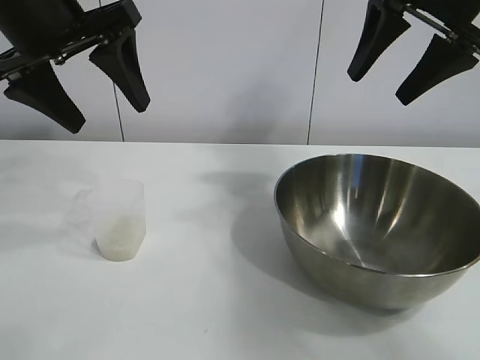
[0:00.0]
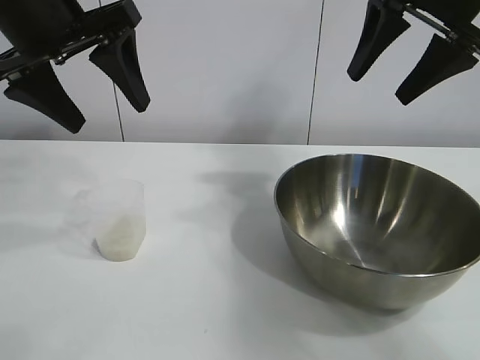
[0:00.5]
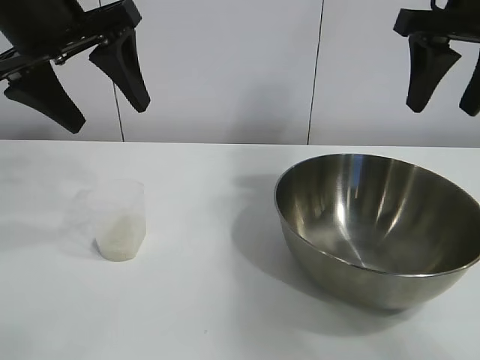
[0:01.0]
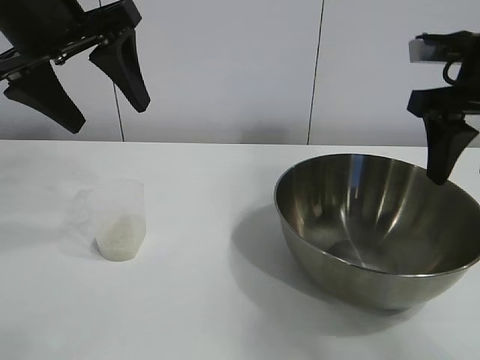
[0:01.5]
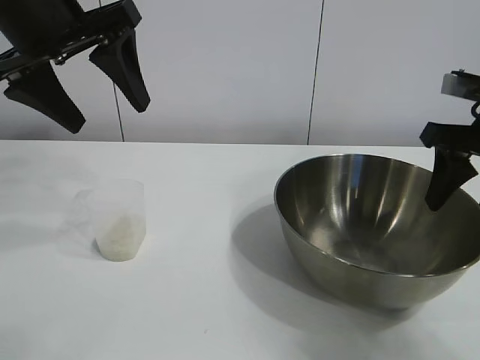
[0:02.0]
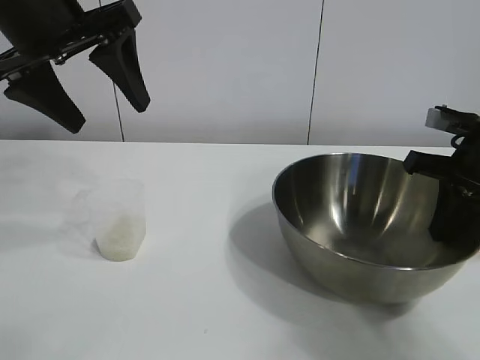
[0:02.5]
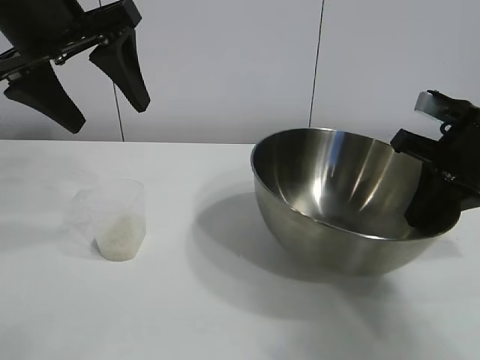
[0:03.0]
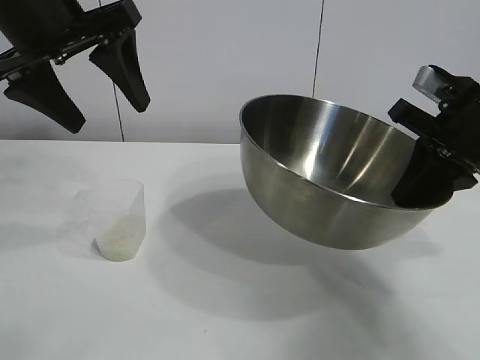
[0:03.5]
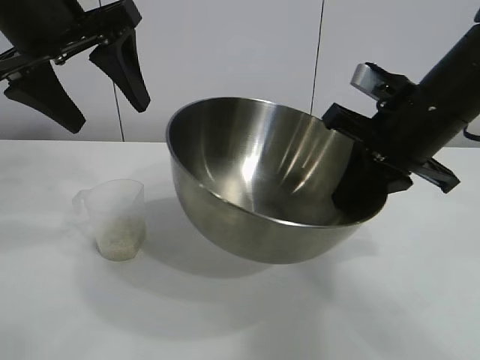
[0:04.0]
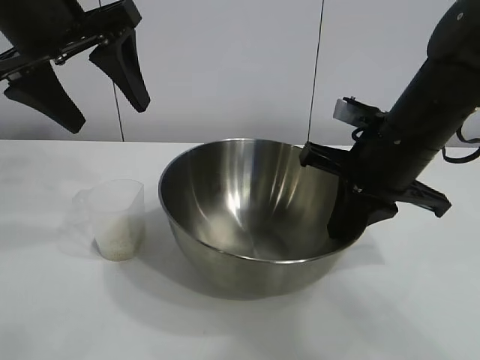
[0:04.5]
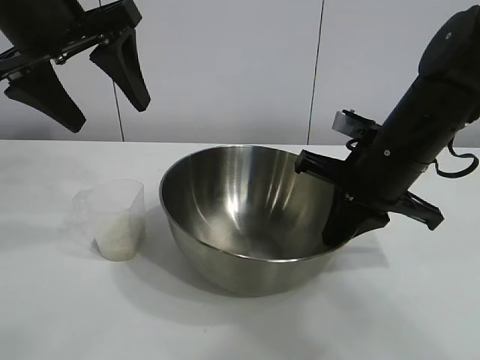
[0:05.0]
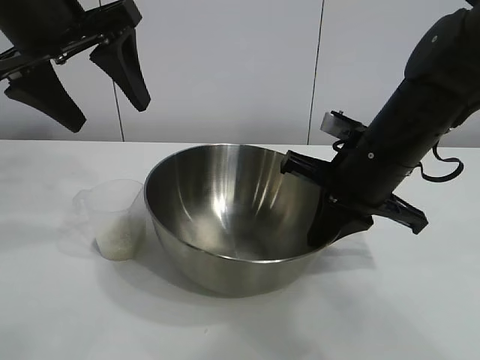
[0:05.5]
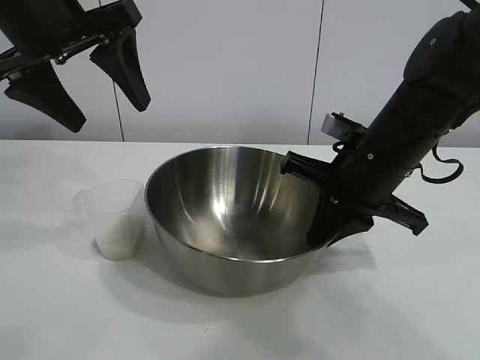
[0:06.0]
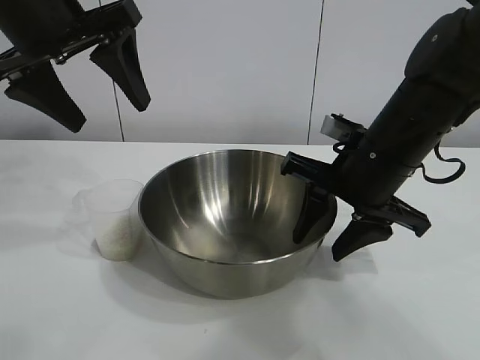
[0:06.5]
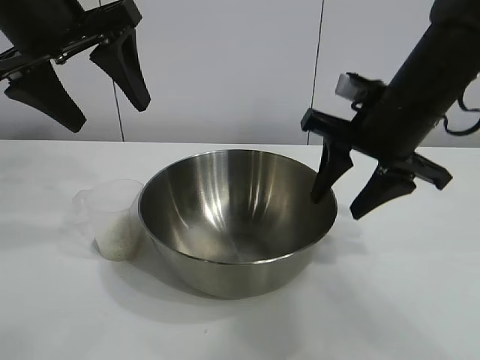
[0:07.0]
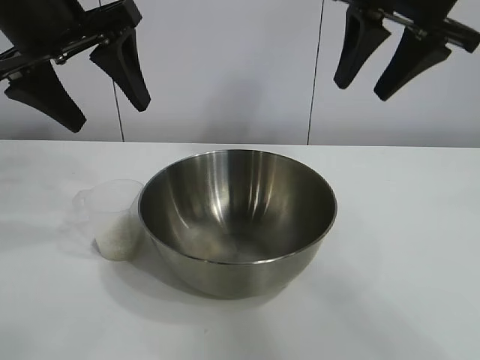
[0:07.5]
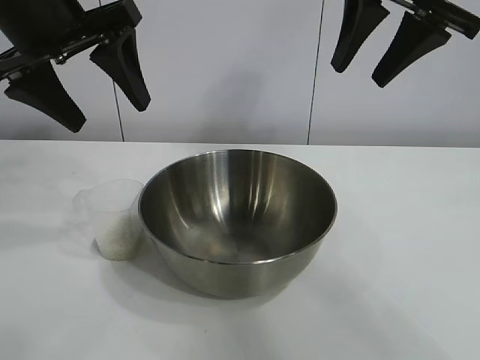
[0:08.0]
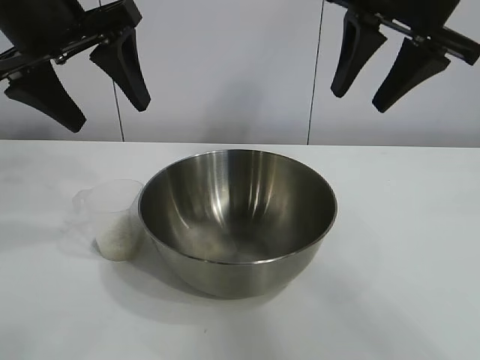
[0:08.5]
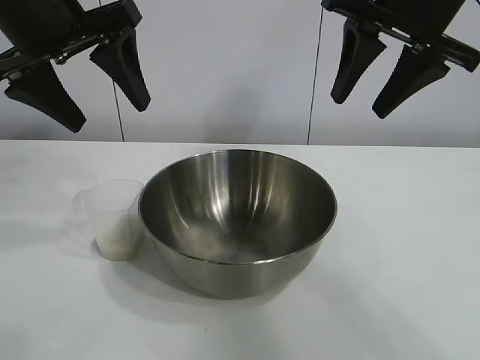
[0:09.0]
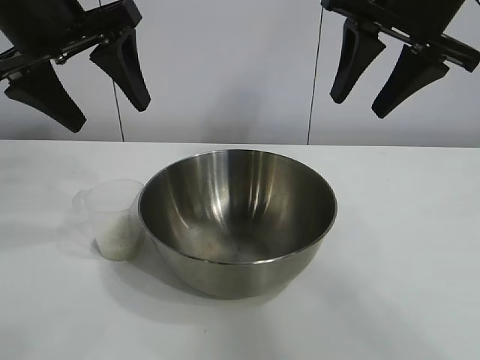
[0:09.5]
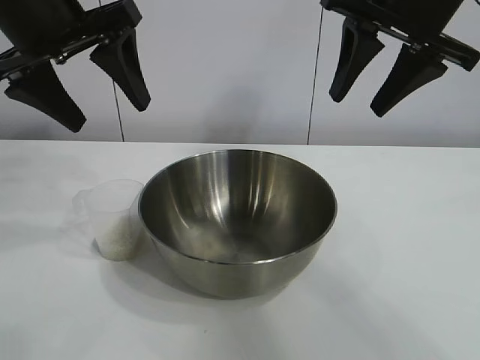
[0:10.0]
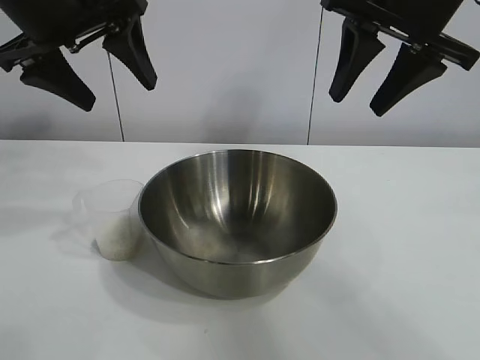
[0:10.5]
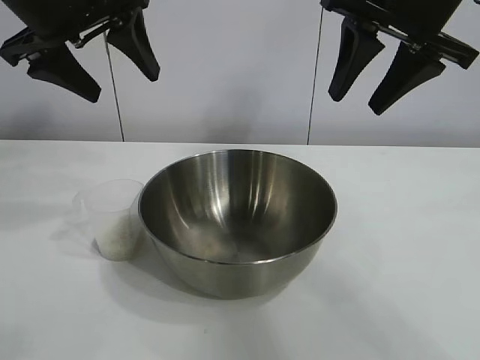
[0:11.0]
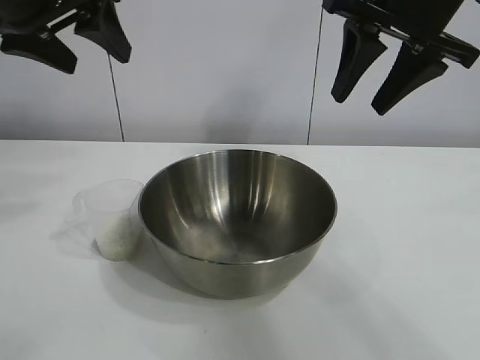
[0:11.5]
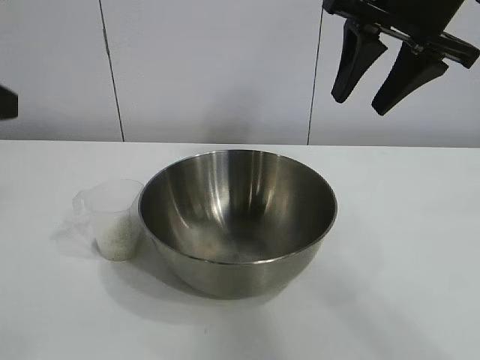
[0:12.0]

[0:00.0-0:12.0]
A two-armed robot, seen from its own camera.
Task of the whole recording: the right gripper grasp the rice container and place it in the center of the table, the left gripper grasp the rice scoop and pour the rice into the rice container.
Step, 0:01.0 to 0:06.5: Move the bowl in the center of view with right gripper.

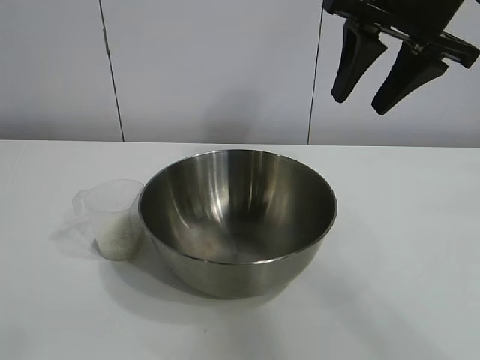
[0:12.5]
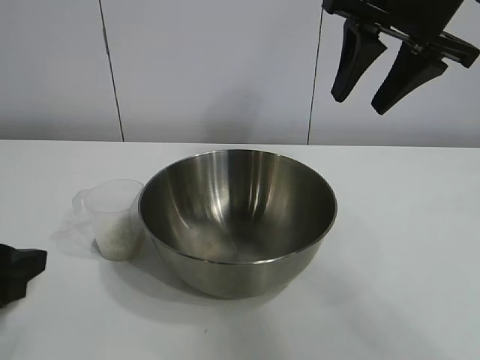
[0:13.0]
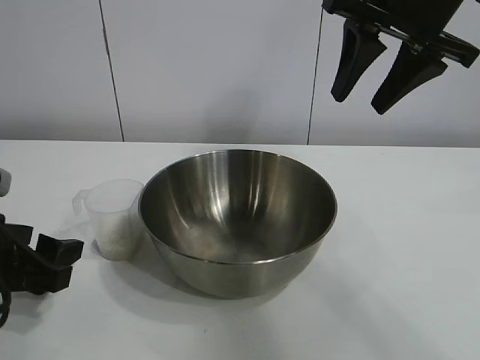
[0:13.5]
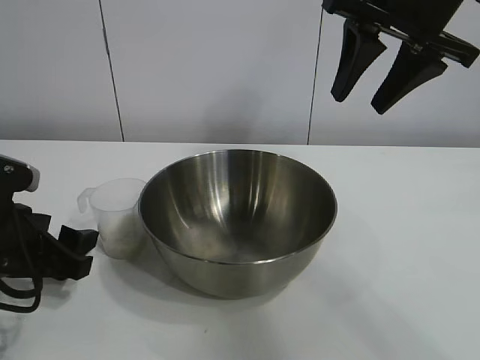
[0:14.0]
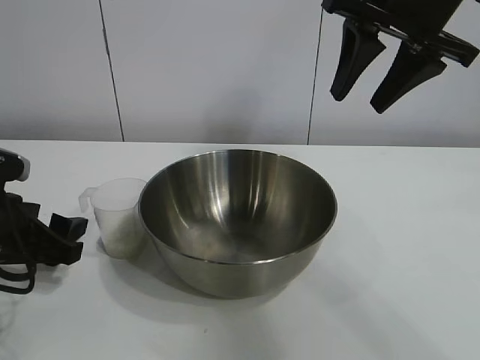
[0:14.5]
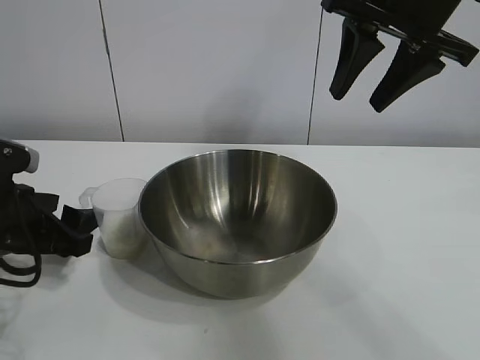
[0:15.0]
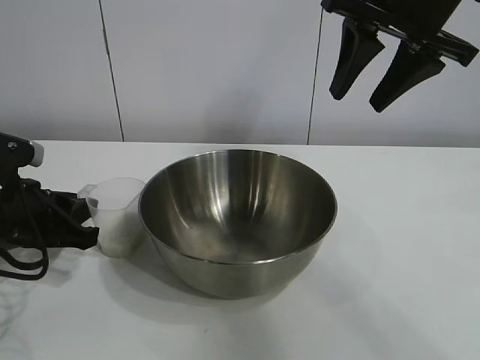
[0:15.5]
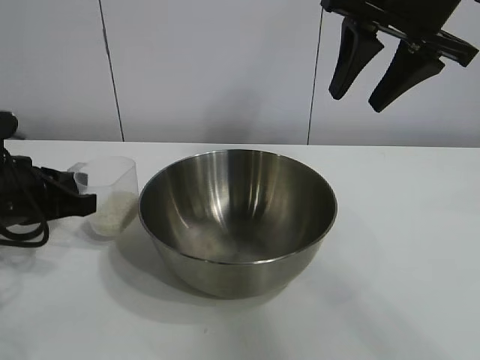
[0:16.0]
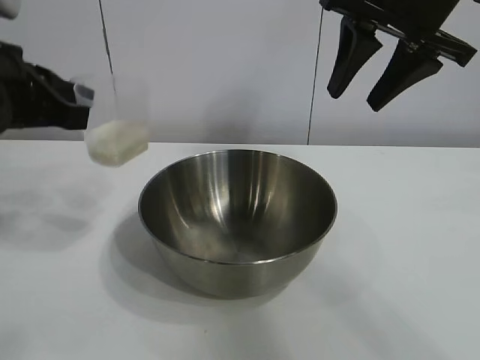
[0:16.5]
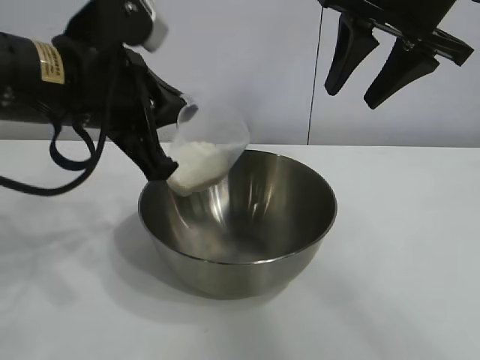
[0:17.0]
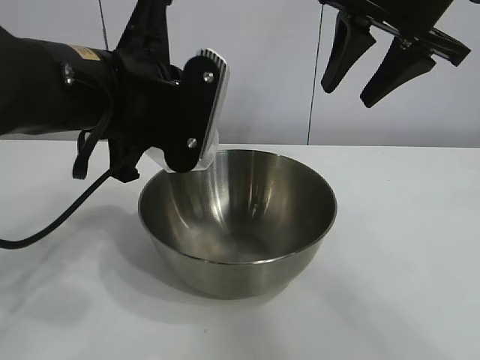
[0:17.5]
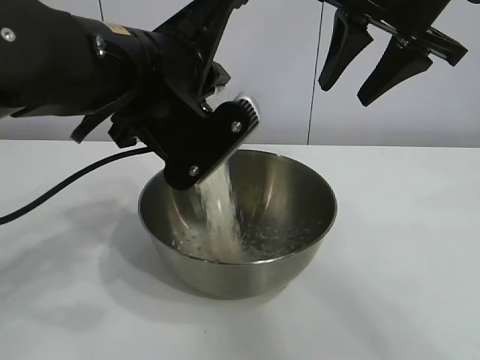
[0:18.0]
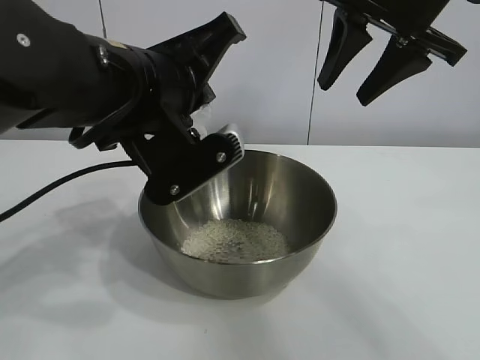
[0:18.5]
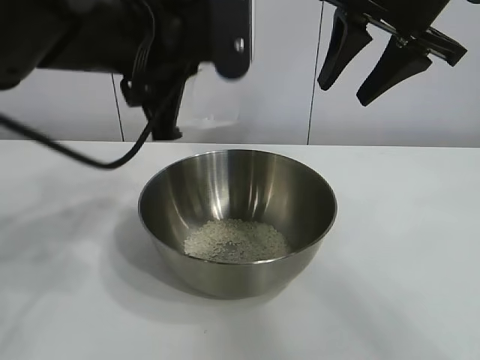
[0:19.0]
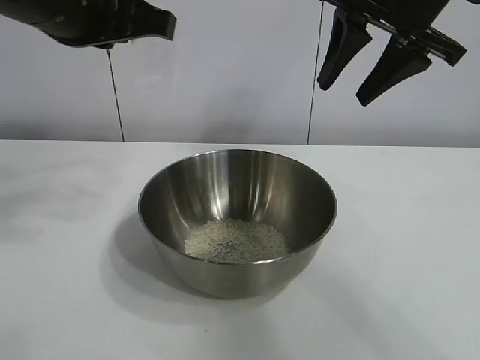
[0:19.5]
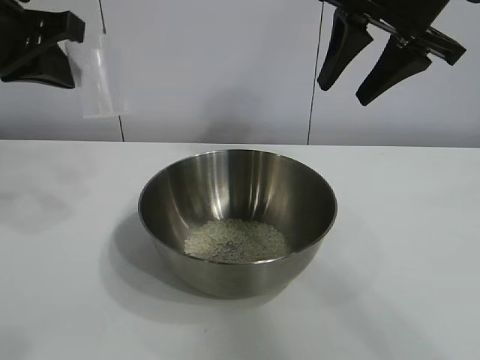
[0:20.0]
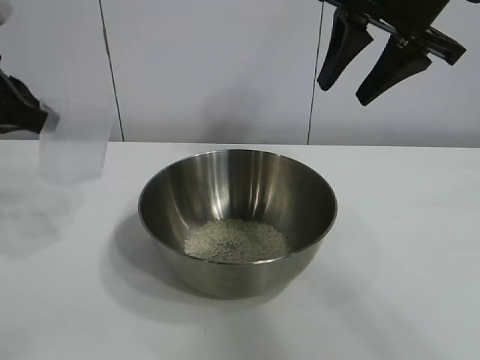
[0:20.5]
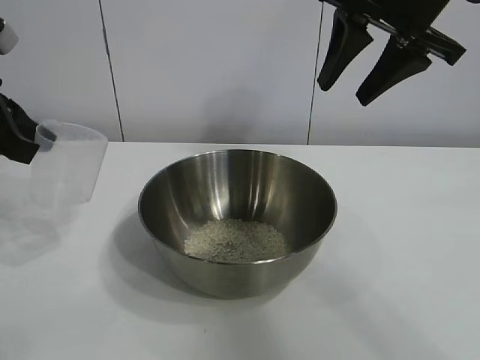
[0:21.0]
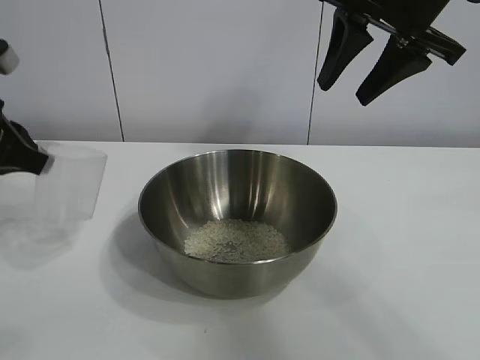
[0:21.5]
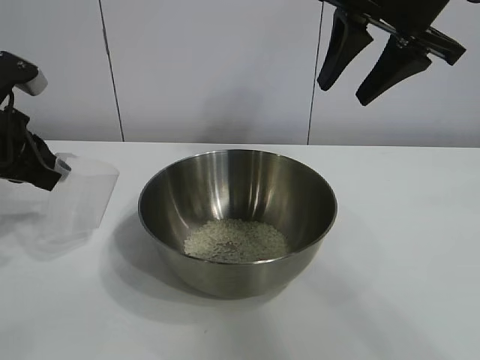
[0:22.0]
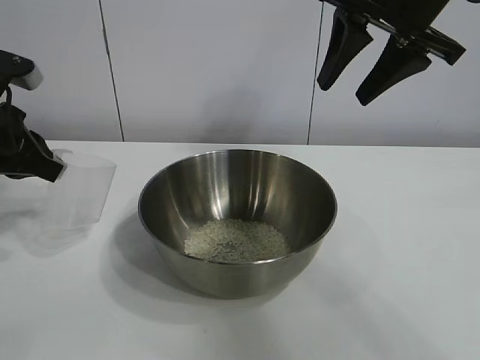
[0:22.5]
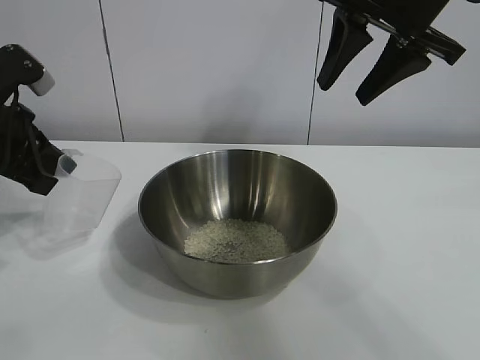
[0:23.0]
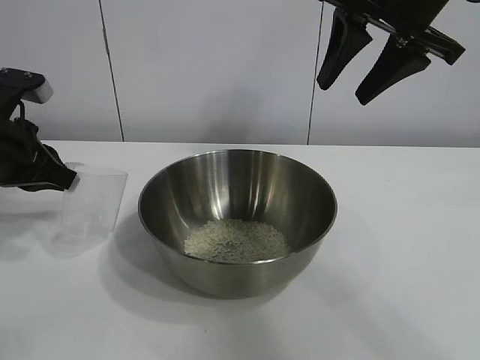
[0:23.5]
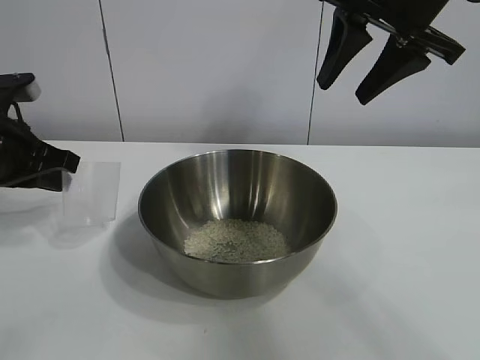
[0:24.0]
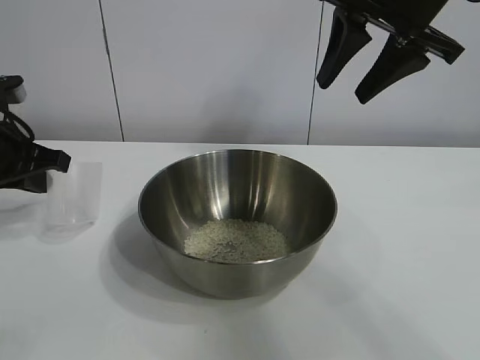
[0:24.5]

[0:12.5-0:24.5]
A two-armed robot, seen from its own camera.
Task of the whole recording: the right gripper grasp the rice container and place it in the center of the table, the left gripper grasp the rice scoop and pour the rice into the rice container.
Step, 0:12.5 to 0:15.5: Grasp the cup with rice in it with left gripper.
Step, 0:16.0 to 0:18.5: Pour the rice from the cup into the bowl with the left gripper.
